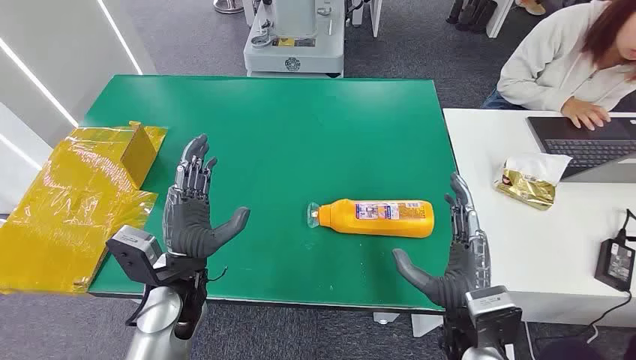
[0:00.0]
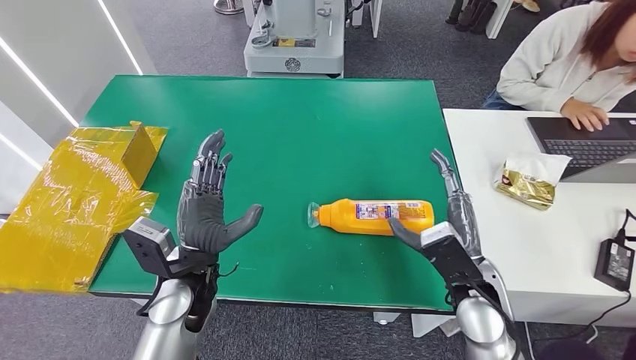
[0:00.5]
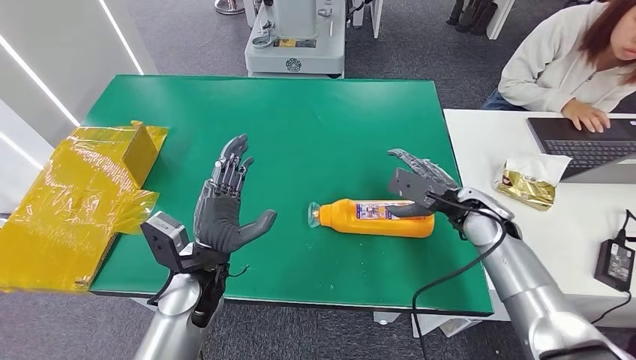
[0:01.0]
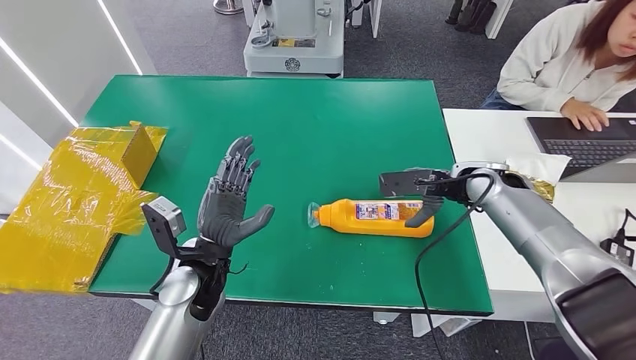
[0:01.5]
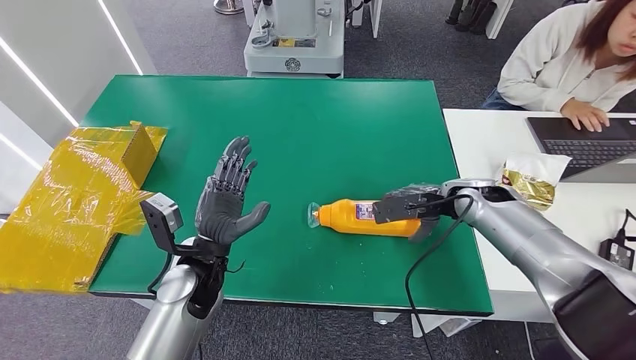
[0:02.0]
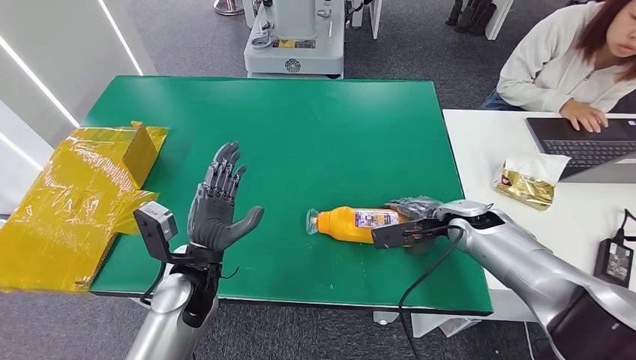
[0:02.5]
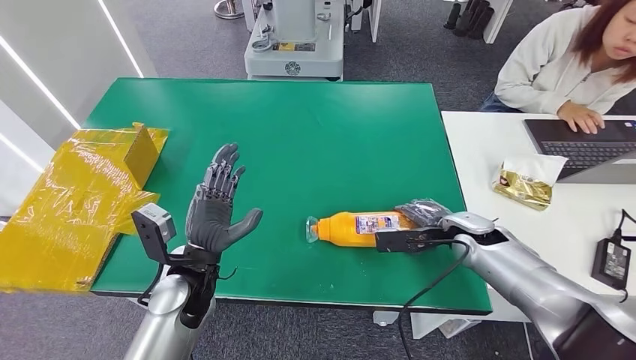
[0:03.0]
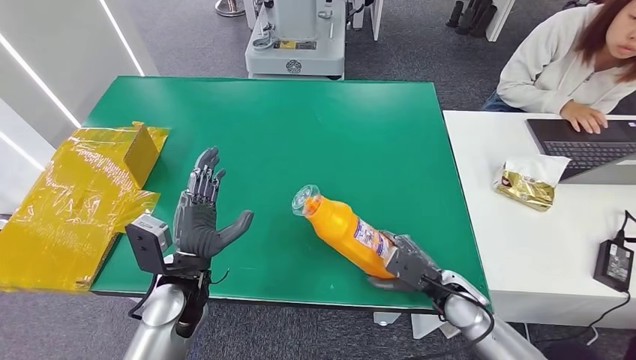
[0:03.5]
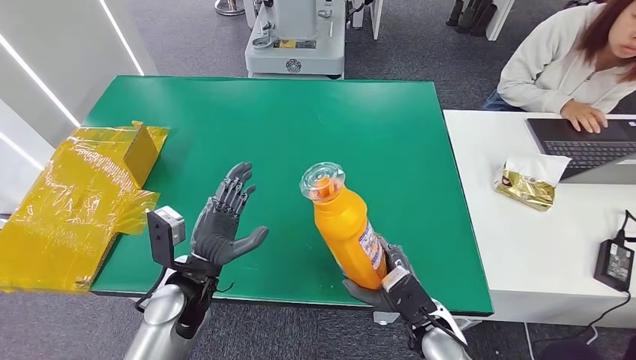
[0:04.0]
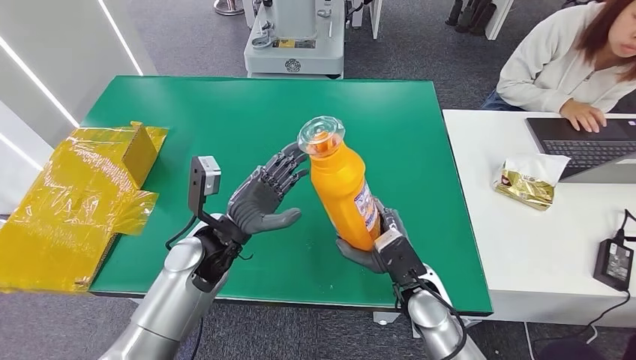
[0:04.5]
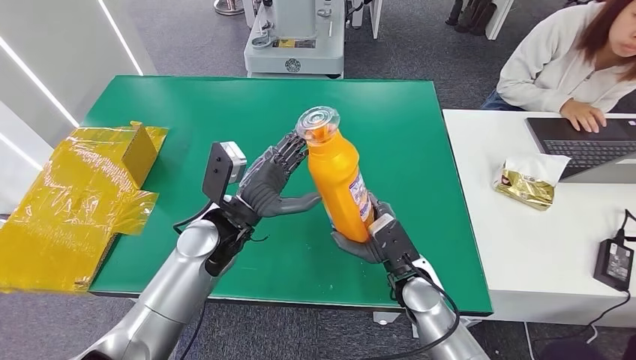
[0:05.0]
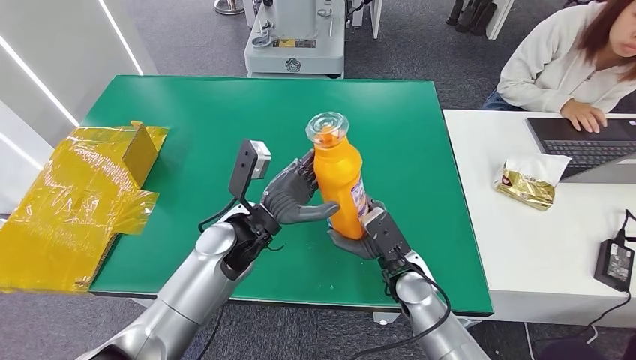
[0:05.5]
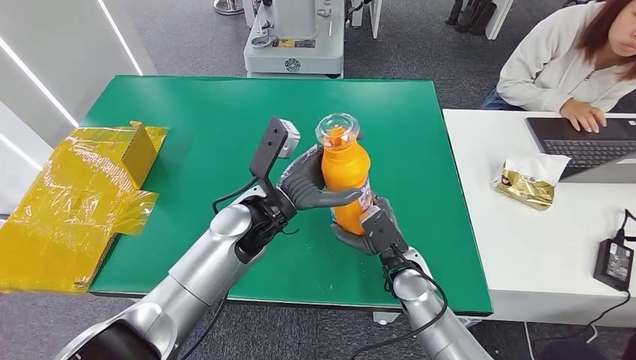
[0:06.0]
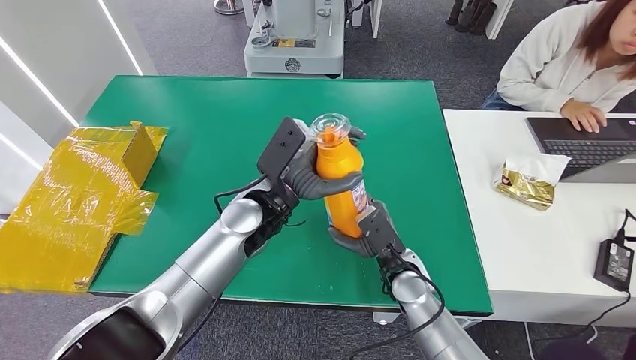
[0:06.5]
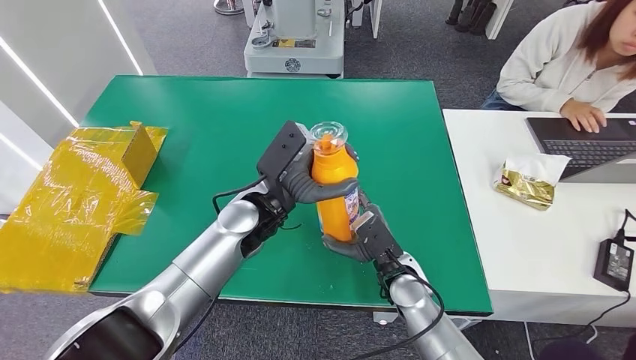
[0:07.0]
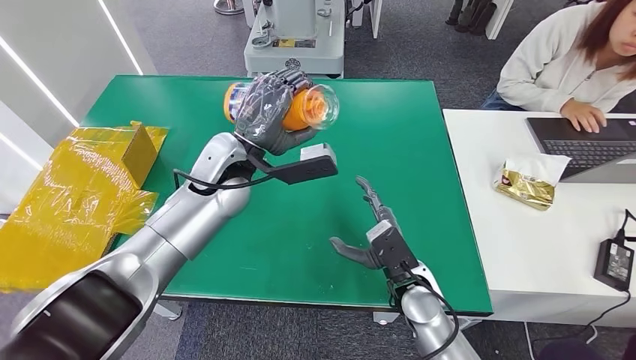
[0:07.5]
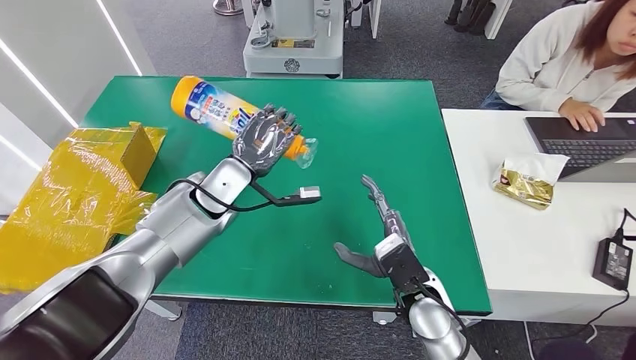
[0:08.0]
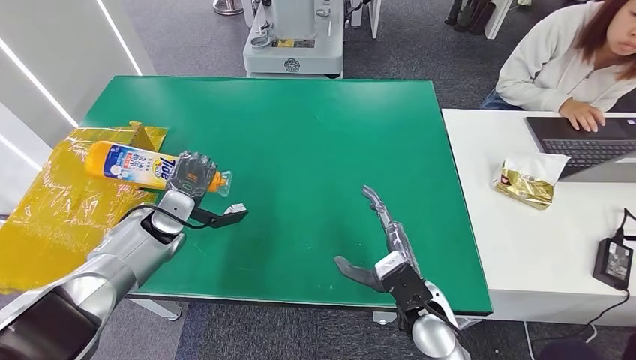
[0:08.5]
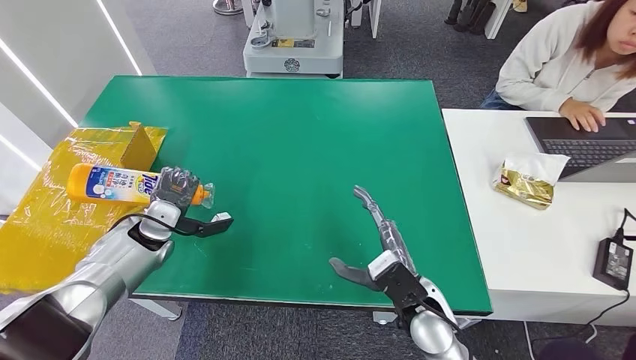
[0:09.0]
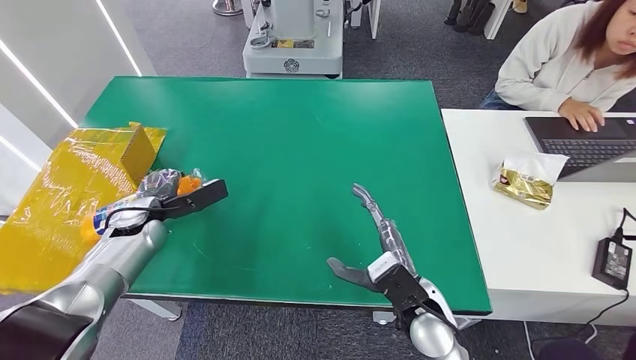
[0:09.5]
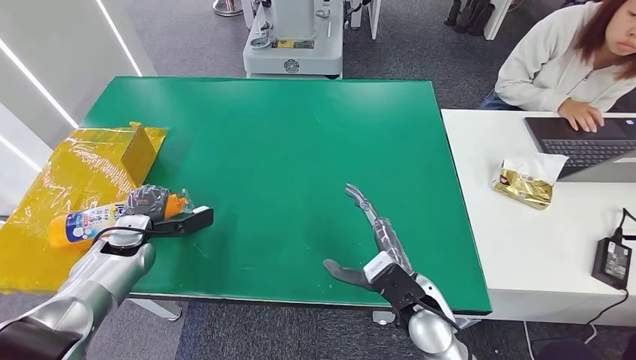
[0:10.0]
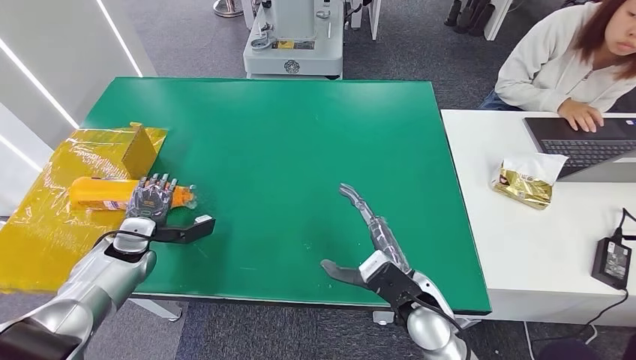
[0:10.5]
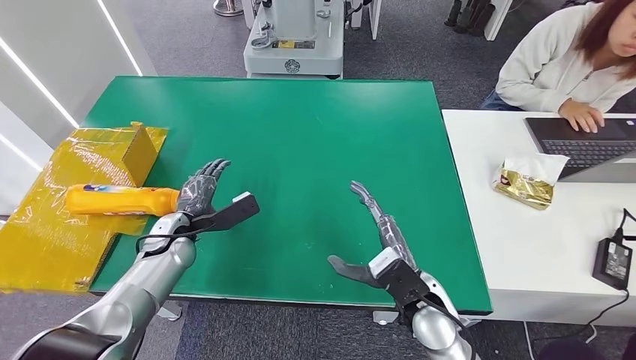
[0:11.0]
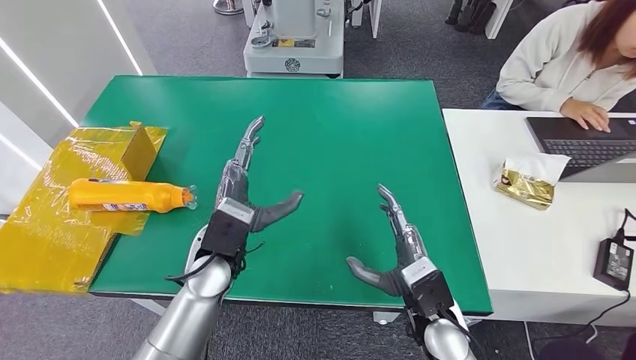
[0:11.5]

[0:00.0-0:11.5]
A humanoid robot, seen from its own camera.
Step, 0:00.0 to 0:03.5: Pick up the bottle from the table.
Step, 0:05.0 to 0:11.5: Turn the bottle to the front side.
0:04.0 to 0:06.0: The right hand is displaced forward by some 10 cm. Meanwhile the left hand moves to the right, forward and upward, approximately 15 cm.
0:06.0 to 0:07.5: The left hand heads forward, upward and to the left, covering some 10 cm.
0:09.5 to 0:11.5: The left hand moves to the right, about 20 cm.
